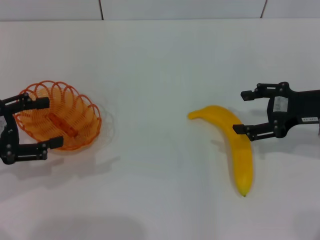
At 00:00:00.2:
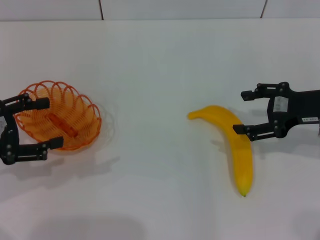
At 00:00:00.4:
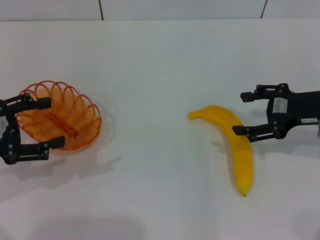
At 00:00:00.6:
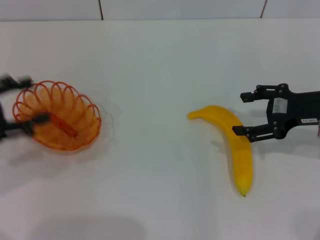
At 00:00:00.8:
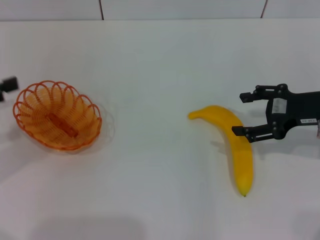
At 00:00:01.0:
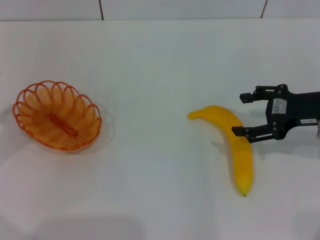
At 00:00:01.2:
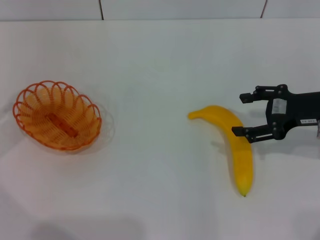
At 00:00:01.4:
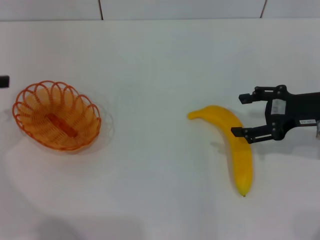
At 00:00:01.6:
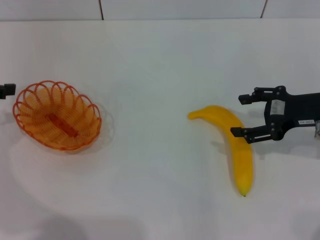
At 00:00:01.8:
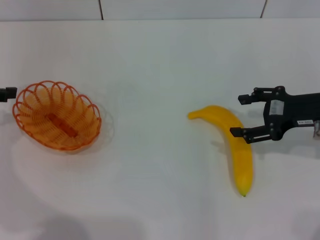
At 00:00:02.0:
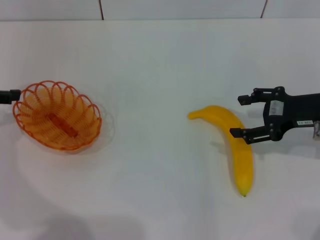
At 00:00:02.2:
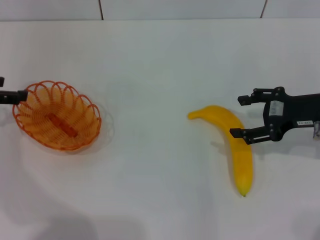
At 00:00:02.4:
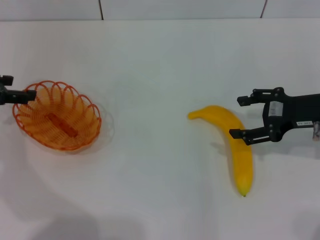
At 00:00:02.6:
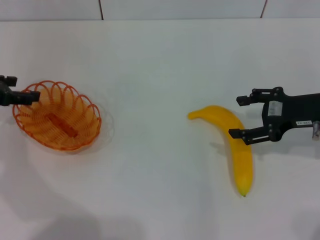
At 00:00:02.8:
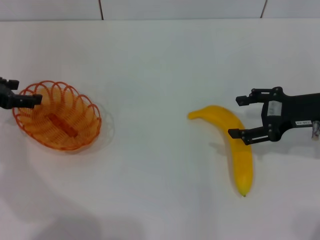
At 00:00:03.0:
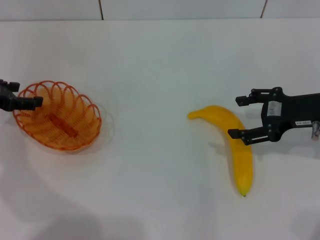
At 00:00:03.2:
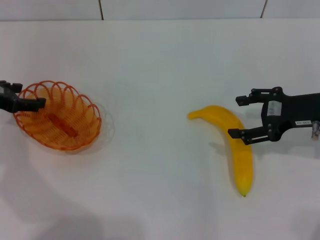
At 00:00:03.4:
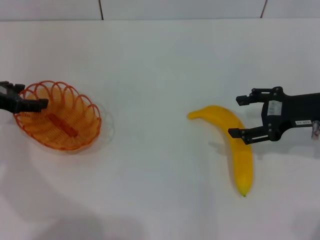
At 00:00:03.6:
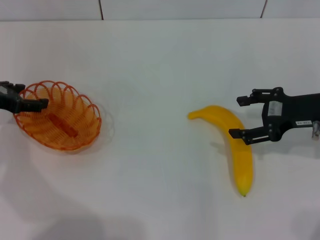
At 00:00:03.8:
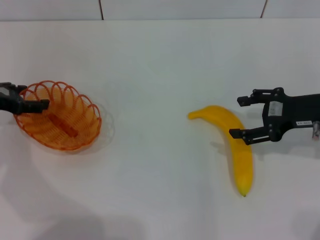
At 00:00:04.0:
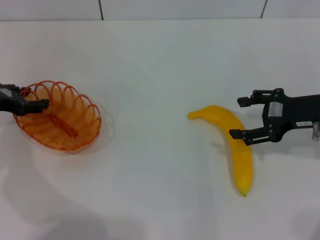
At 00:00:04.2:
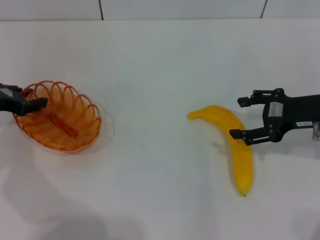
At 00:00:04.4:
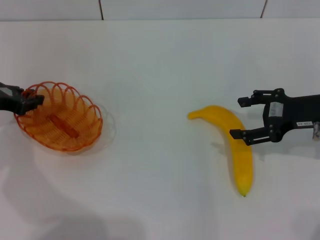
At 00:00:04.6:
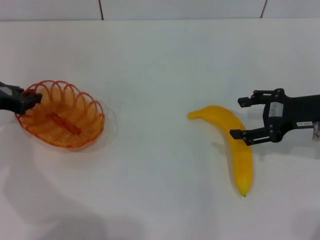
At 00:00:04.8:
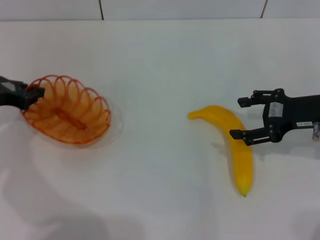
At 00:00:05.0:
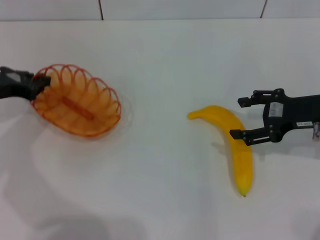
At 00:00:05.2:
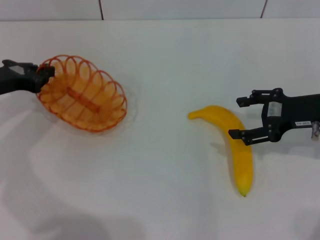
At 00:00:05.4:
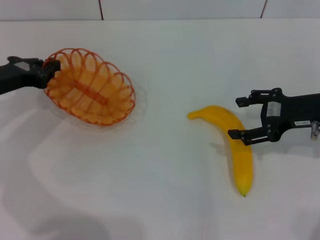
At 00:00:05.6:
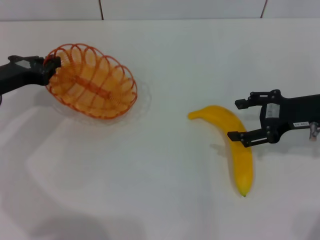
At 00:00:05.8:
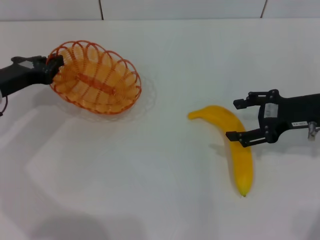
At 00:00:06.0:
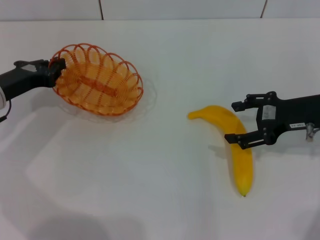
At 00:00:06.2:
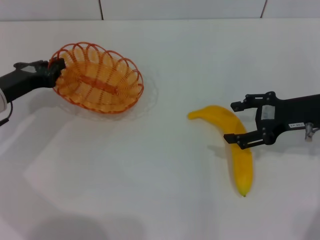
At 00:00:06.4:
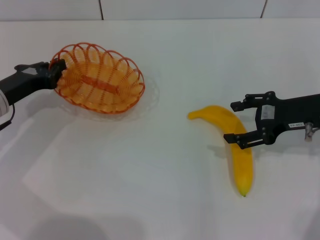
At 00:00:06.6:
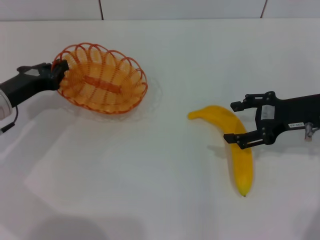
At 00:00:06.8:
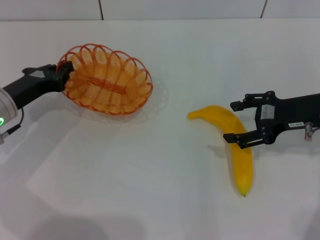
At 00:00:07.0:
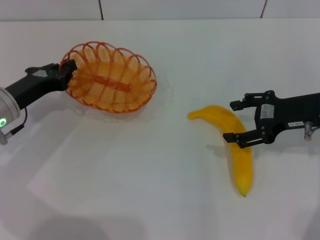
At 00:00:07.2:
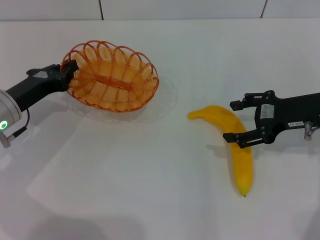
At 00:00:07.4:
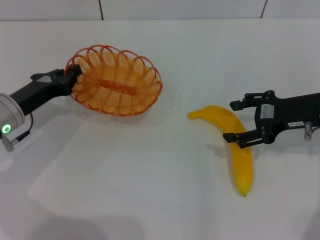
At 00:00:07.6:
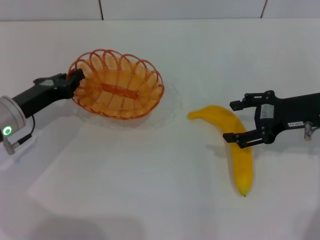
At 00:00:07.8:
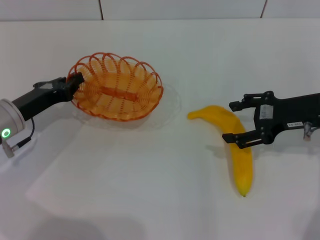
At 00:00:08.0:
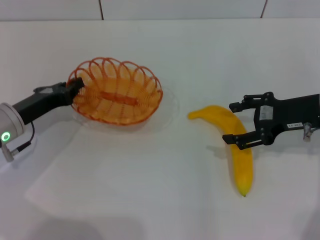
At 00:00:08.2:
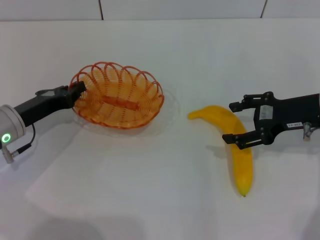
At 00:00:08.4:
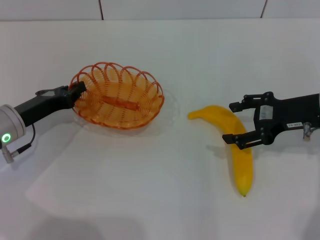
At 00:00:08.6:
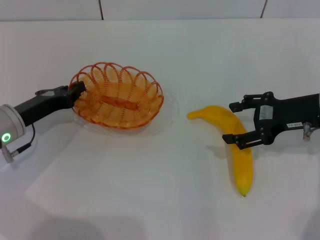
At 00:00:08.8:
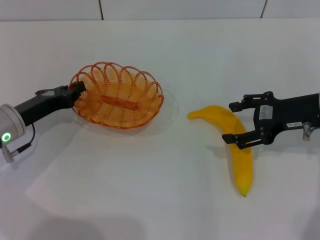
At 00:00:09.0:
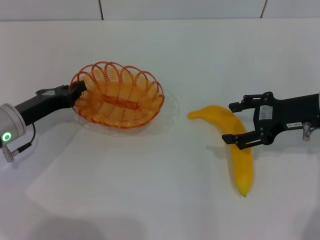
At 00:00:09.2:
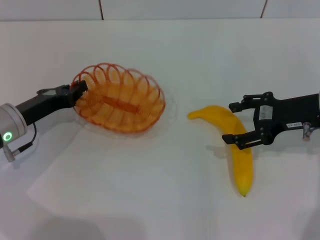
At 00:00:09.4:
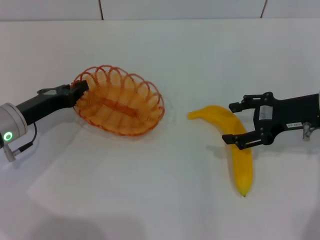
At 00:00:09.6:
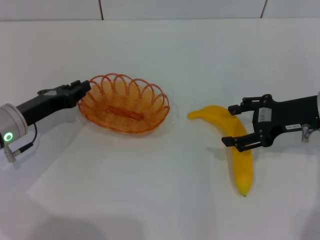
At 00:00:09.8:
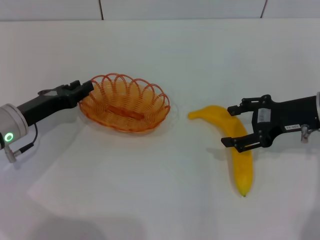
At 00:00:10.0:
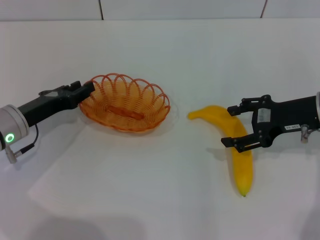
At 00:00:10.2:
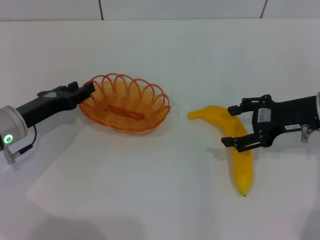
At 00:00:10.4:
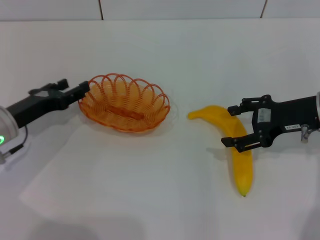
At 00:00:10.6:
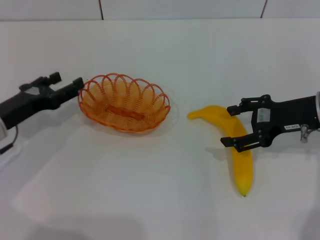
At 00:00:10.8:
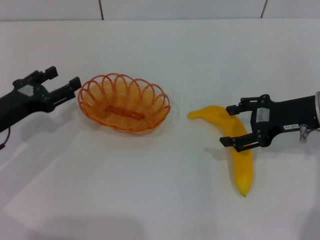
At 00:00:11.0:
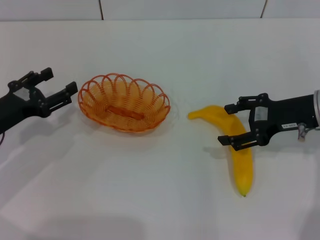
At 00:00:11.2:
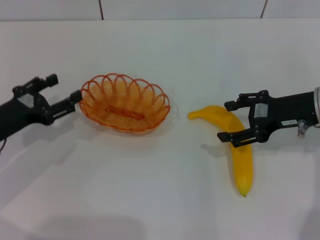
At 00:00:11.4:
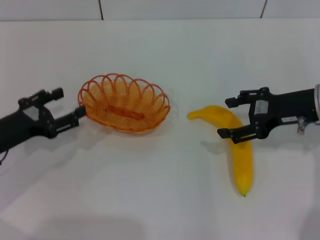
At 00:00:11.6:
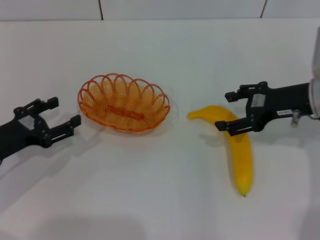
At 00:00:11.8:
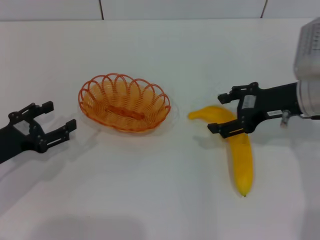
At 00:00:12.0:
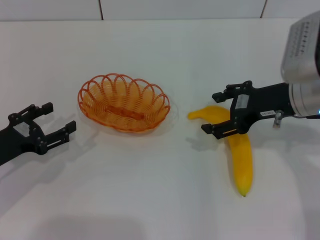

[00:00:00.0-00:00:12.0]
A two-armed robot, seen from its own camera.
Step, 00:00:00.0 to 00:00:05.4: Pick up the basket with the left gripper.
Step, 00:00:05.6 to 00:00:10.0: Place the basket in the center of view with the left gripper.
00:00:00.0 to 00:00:01.6: The left gripper travels forward by about 5 cm.
00:00:01.6 to 00:00:03.0: The left gripper shifts by some 5 cm.
00:00:03.0 to 00:00:04.4: The left gripper closes up.
00:00:04.4 to 00:00:06.0: The left gripper closes.
00:00:06.0 to 00:00:09.0: There are only small adjustments of the grippers.
00:00:09.0 to 00:00:10.4: The left gripper opens up.
00:00:10.4 to 00:00:12.0: The right gripper changes place by about 5 cm, while the left gripper travels backward by roughly 5 cm.

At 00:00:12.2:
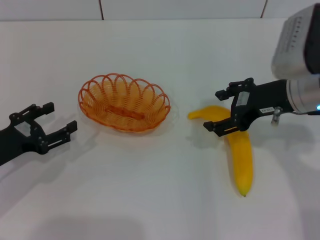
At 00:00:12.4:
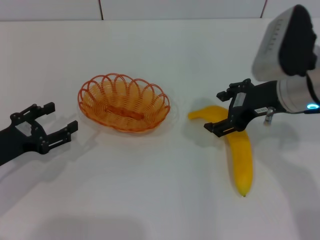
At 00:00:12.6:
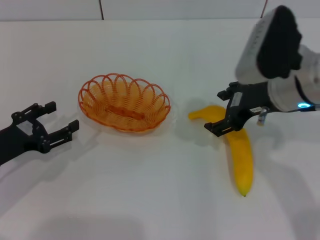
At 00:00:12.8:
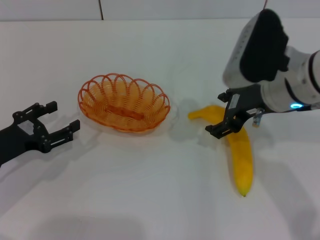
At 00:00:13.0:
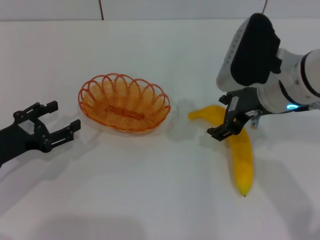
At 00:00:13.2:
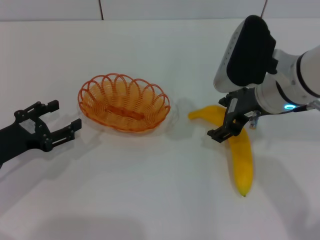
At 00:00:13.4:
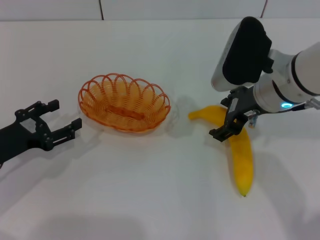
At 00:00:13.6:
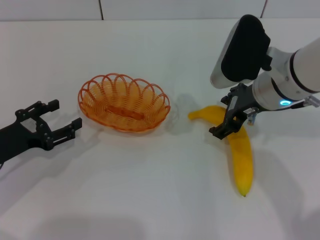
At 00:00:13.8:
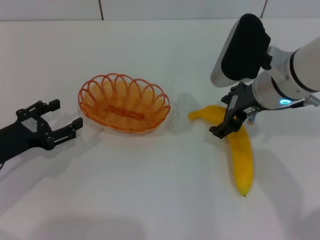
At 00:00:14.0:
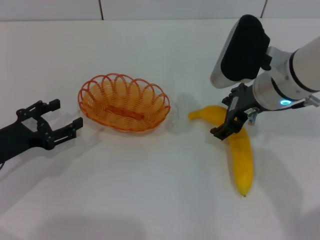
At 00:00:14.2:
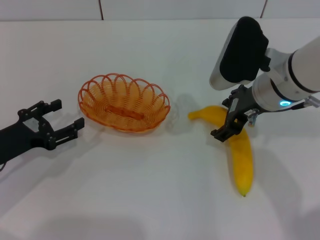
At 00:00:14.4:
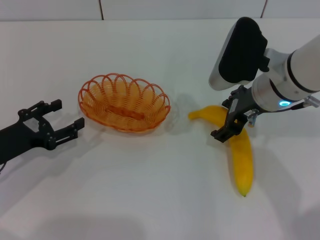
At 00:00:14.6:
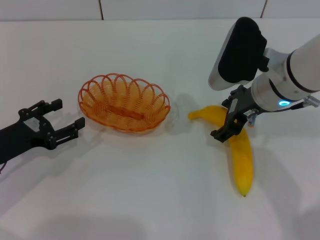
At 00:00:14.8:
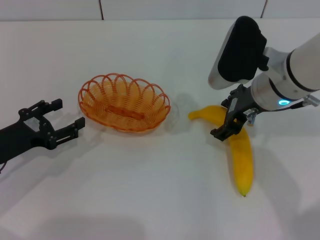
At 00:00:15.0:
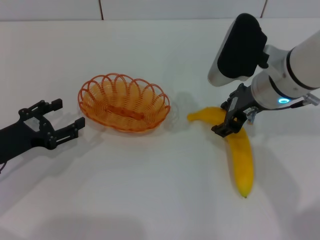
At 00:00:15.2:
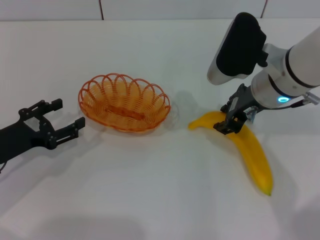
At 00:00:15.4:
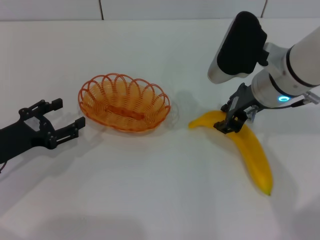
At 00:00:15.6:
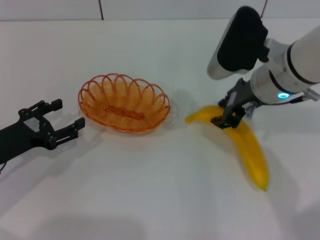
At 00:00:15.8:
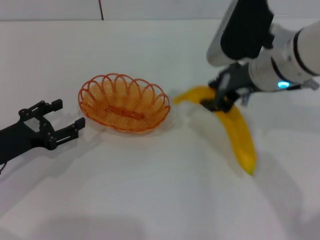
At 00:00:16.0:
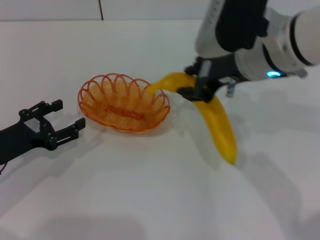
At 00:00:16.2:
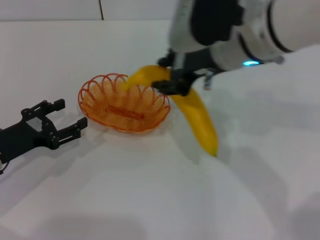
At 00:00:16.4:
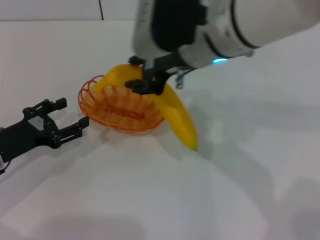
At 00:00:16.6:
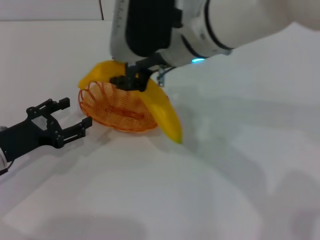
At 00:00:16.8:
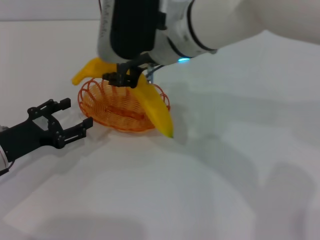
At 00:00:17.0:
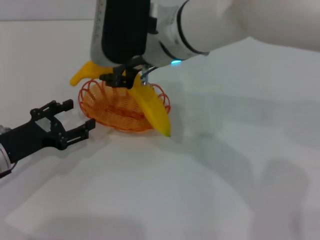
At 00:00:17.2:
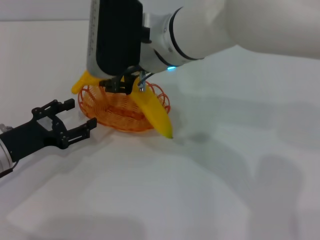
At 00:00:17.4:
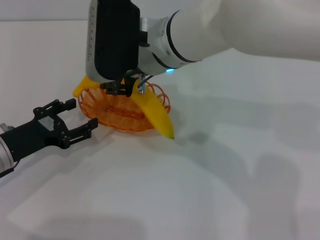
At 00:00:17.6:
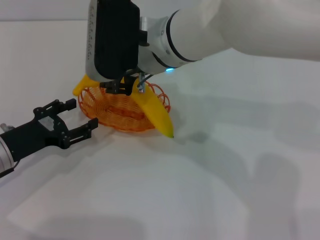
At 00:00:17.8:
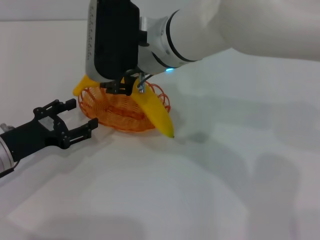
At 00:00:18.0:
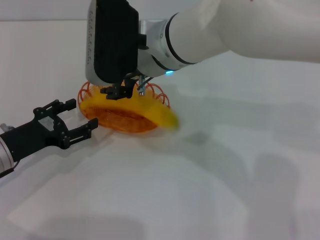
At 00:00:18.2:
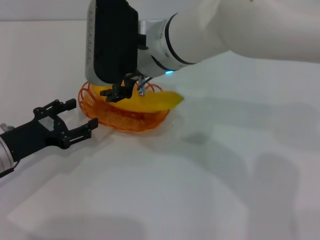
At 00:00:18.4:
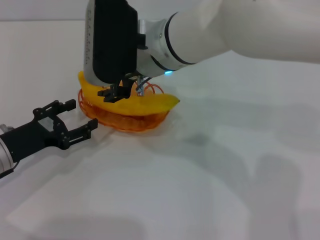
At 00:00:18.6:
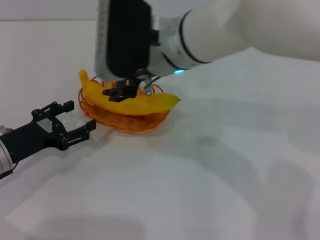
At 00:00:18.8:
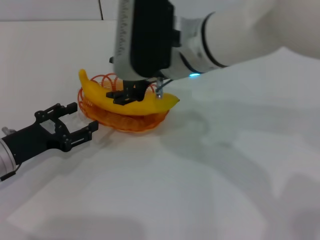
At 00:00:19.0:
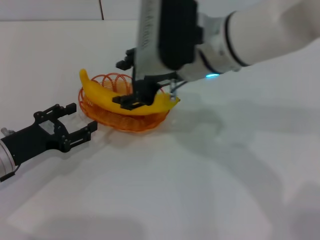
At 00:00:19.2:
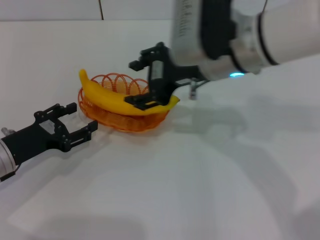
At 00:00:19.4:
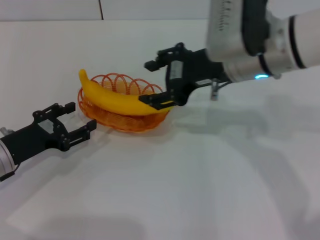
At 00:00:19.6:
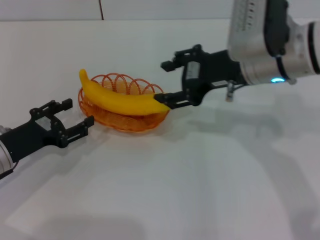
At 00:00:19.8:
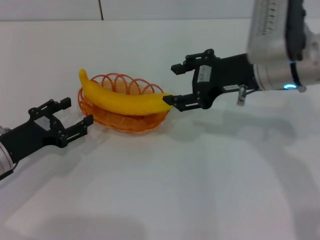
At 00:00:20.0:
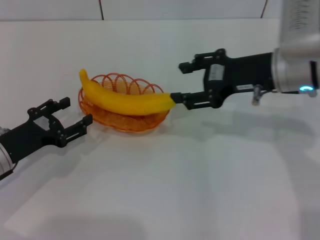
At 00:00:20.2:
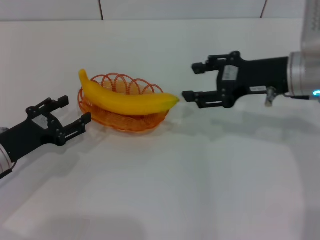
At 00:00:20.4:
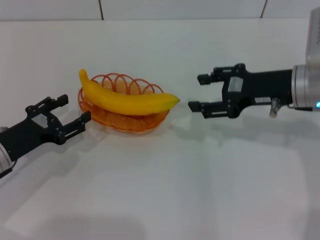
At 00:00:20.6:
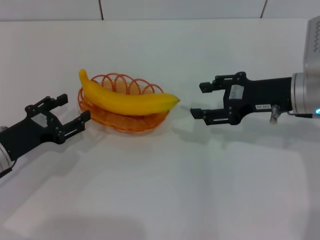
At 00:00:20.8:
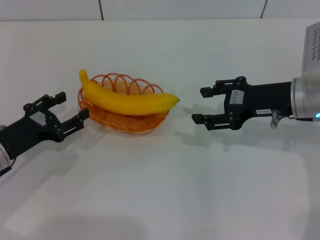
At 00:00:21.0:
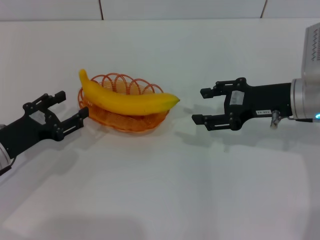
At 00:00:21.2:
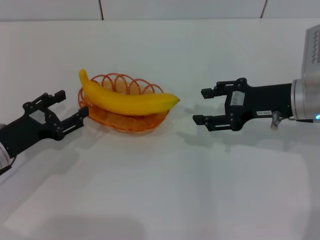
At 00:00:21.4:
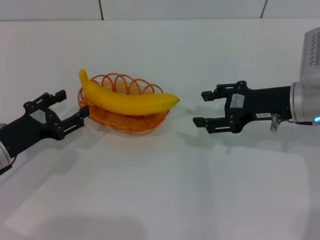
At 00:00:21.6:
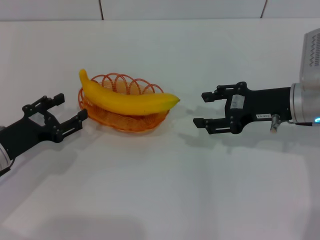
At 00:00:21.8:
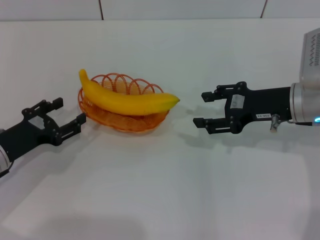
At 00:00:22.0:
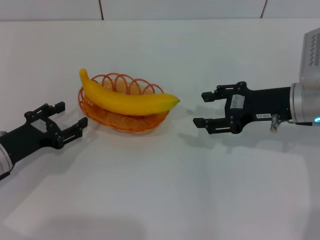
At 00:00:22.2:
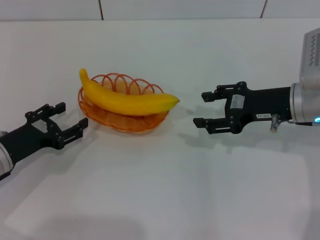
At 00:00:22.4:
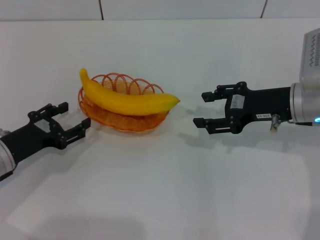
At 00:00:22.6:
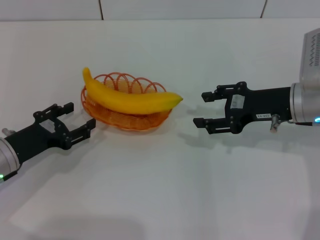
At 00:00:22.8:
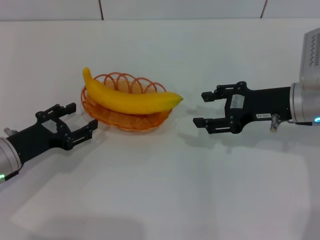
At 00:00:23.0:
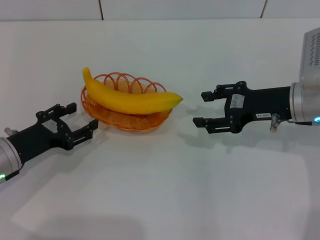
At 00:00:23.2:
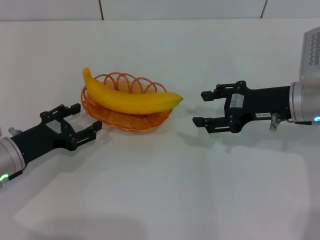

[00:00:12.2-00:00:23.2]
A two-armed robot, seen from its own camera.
Step, 00:00:12.2 to 00:00:16.0: Pick up the banana with the right gripper.
Step, 00:00:16.2 to 00:00:18.4: Place the banana into the basket with the right gripper.
00:00:12.2 to 00:00:13.8: The right gripper goes some 5 cm to the left.
00:00:13.8 to 00:00:15.4: The right gripper closes.
00:00:15.4 to 00:00:17.0: The right gripper moves to the left, approximately 15 cm.
00:00:17.0 to 00:00:18.4: The right gripper opens.
00:00:18.4 to 00:00:20.0: The right gripper heads to the right, covering some 20 cm.
00:00:20.0 to 00:00:21.6: The right gripper shifts approximately 5 cm downward.
00:00:21.6 to 00:00:23.2: The grippers make only small movements.
